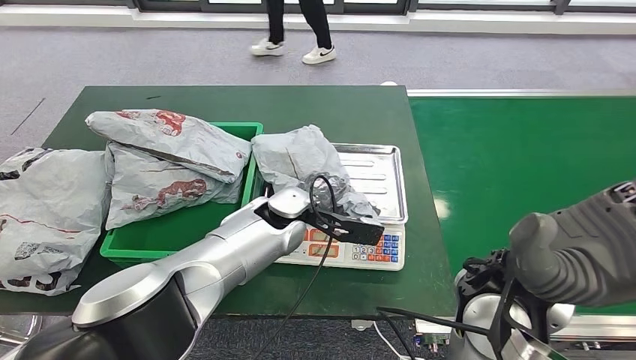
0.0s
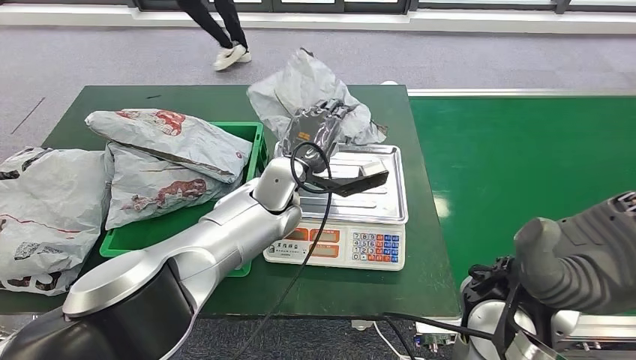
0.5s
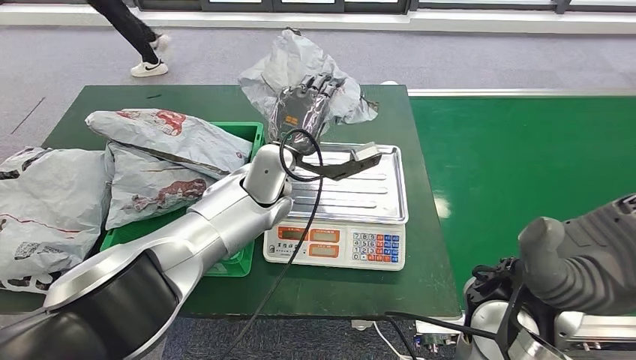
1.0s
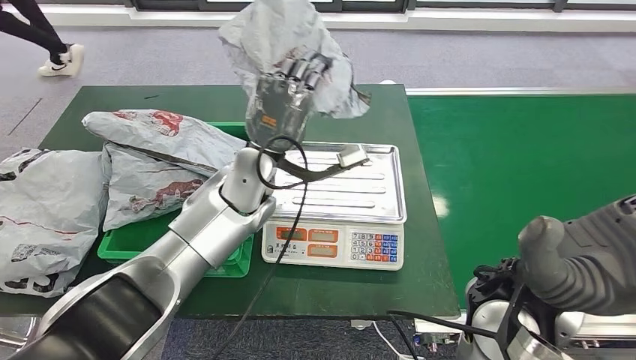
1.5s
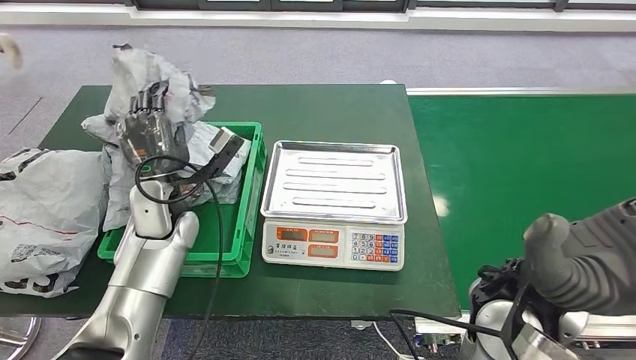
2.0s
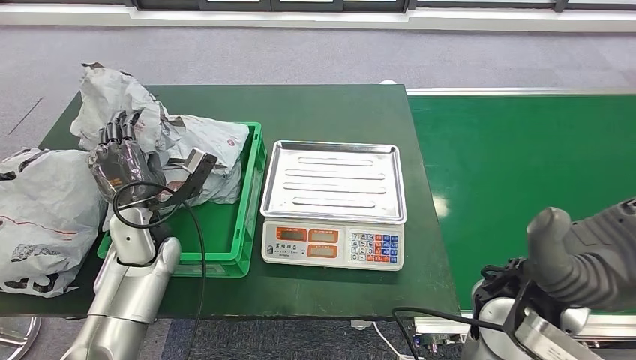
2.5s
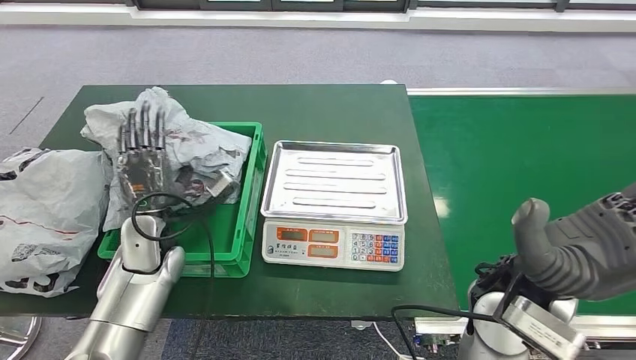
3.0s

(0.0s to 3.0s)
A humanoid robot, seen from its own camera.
Step, 1.0s - 3.0s: Place the parcel into the delivery box.

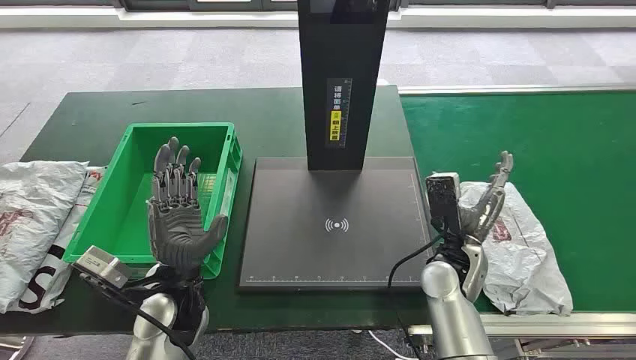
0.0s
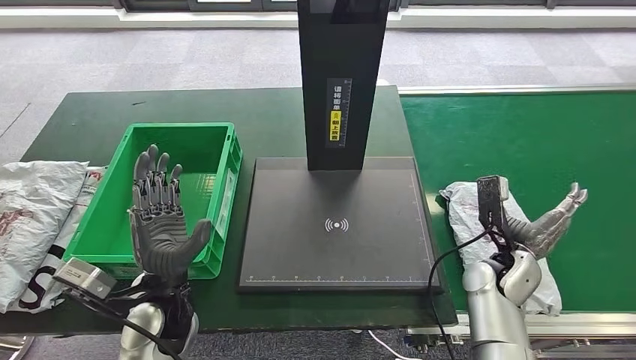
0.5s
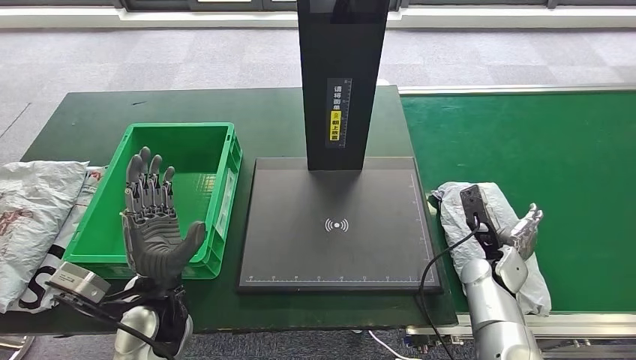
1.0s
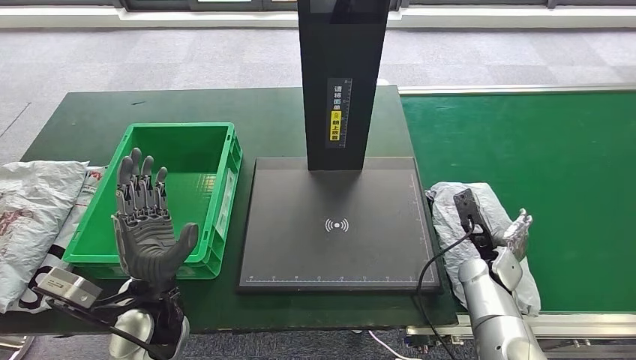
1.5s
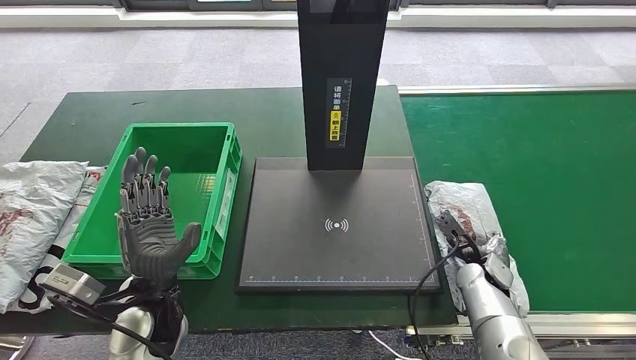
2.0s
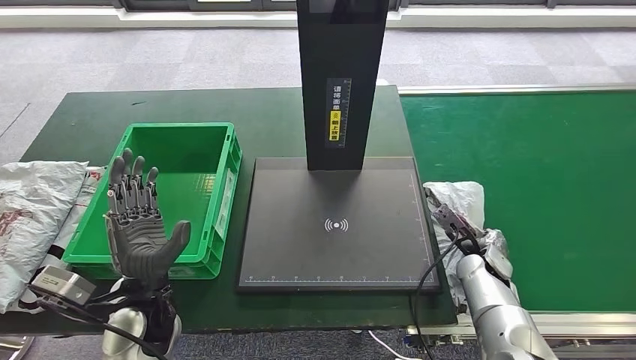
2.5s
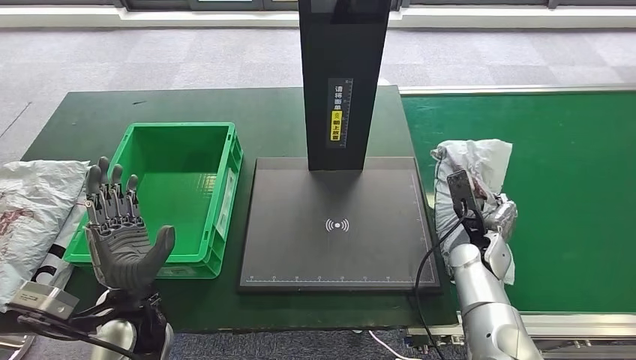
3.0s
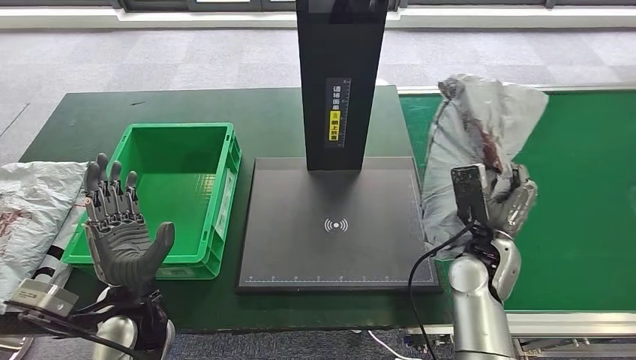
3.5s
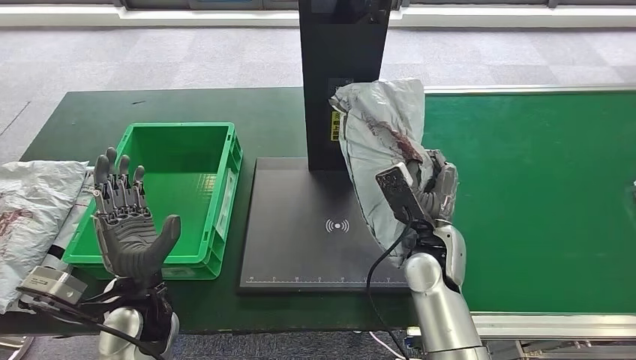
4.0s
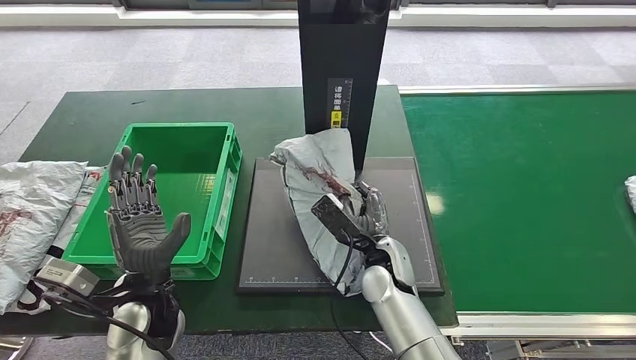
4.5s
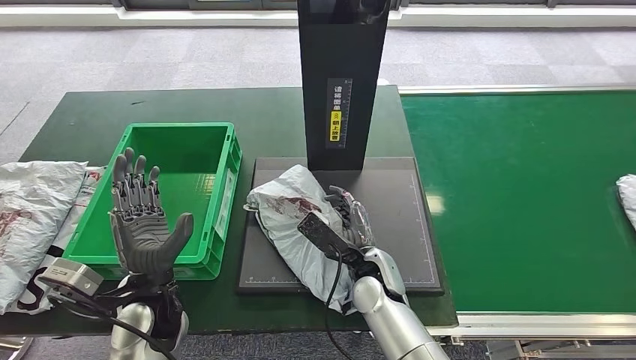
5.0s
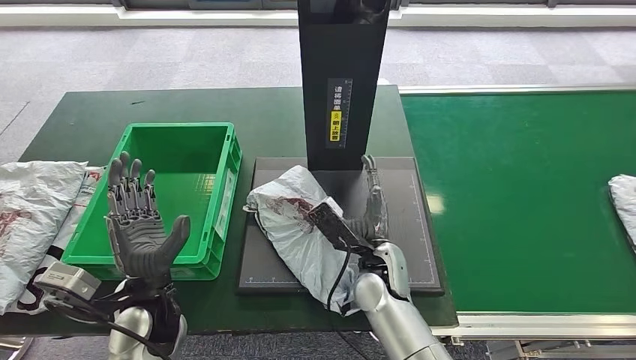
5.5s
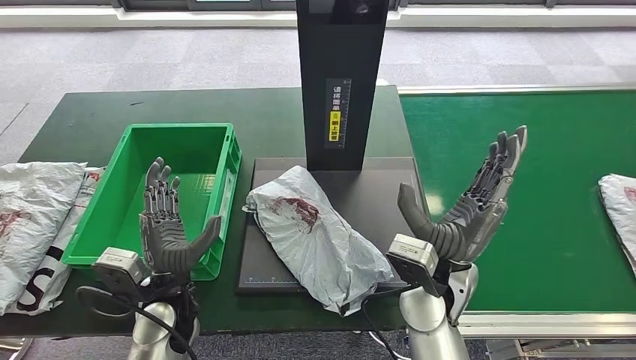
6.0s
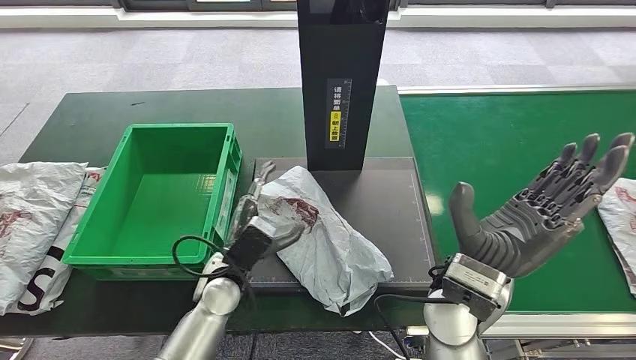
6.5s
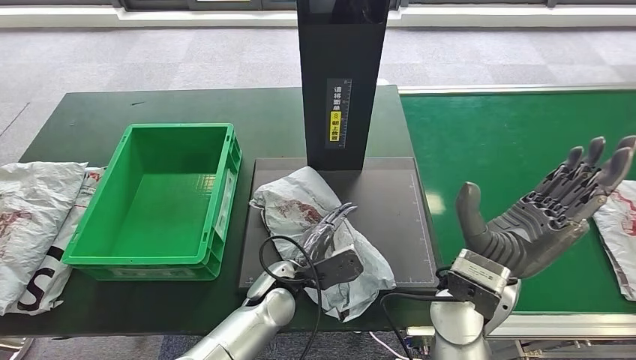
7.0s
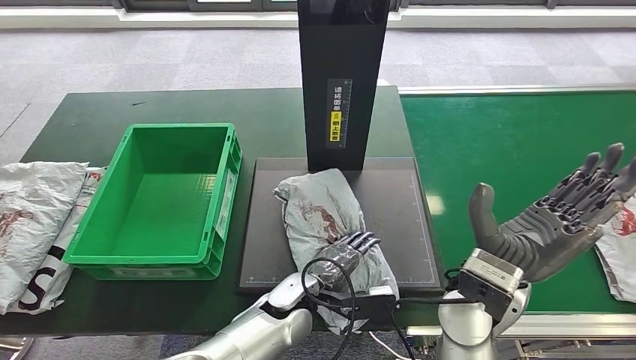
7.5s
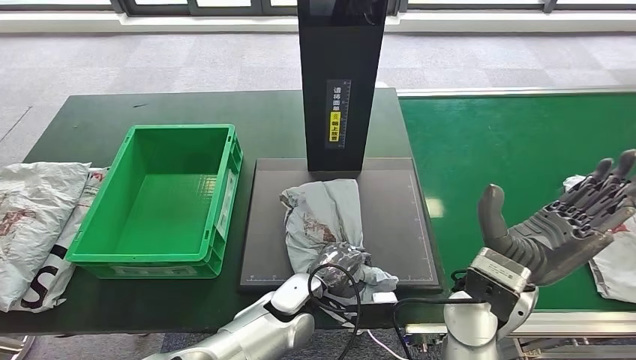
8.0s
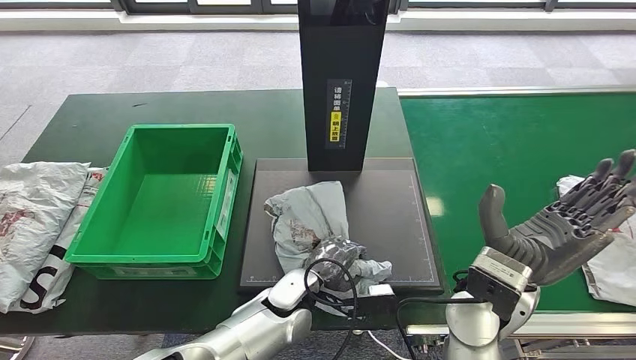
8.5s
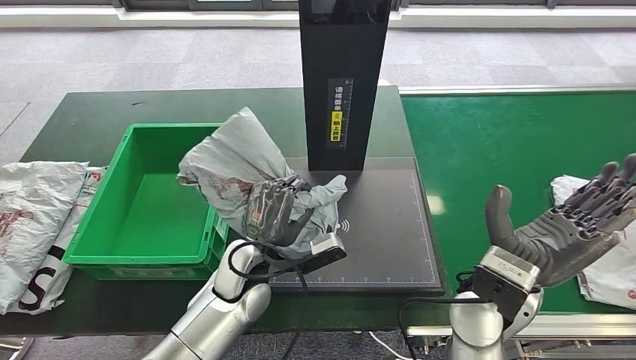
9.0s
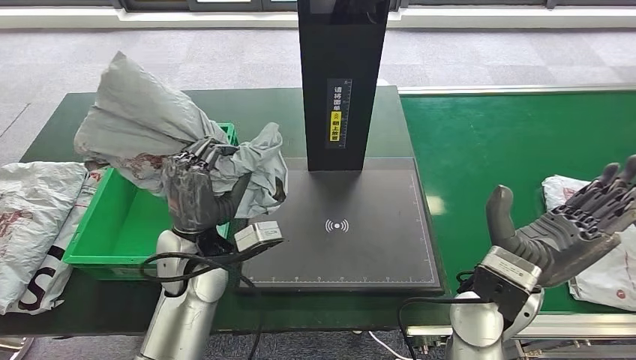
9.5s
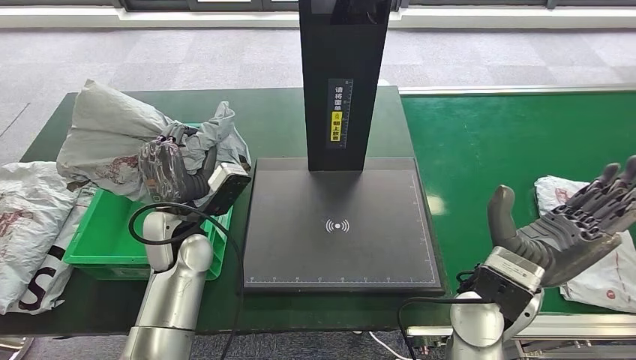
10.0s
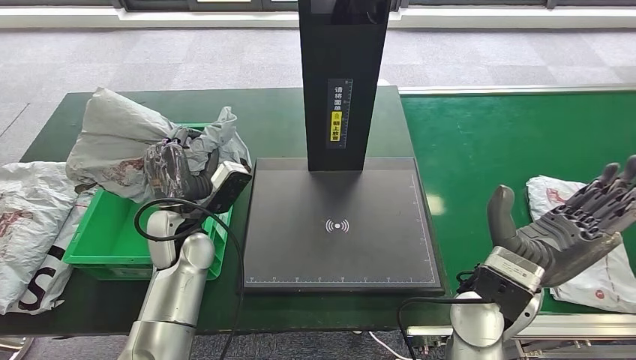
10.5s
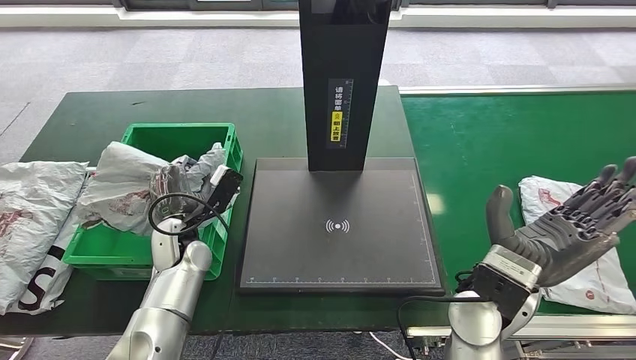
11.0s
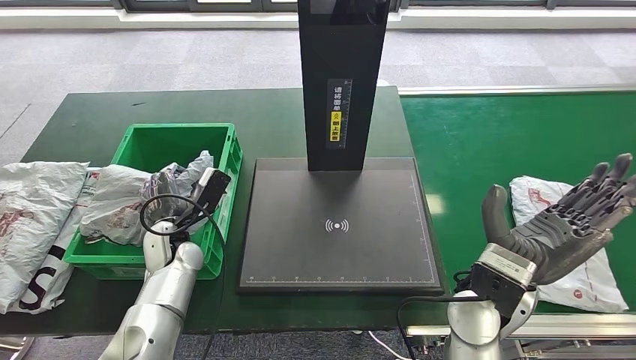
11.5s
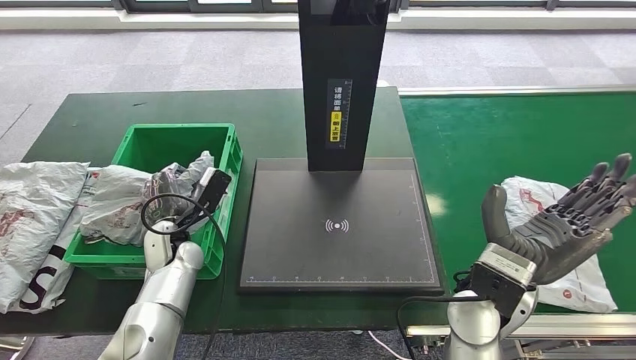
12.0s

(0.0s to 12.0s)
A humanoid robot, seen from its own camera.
Step, 0.0s - 3.5s: Take the parcel off the conveyor belt.
Step, 4.0s - 6.0s: Place the parcel onto the inbound machine.
Step, 6.5s - 8.5s: Pick up the parcel from the inbound machine.
2.0s - 4.0s: The right hand shifts approximately 20 cm to the left and upward.

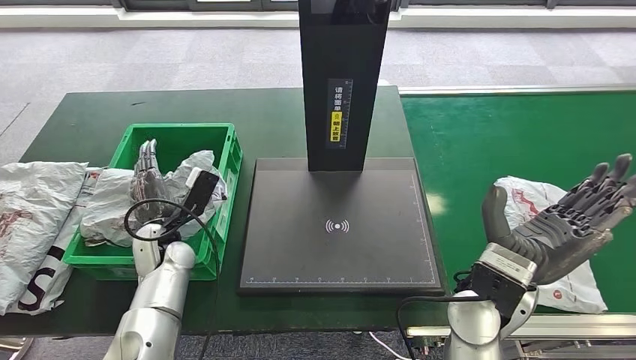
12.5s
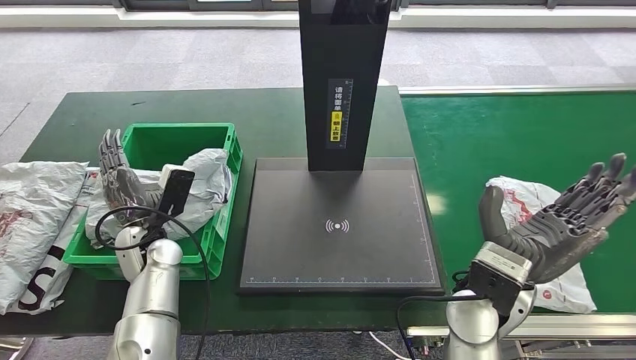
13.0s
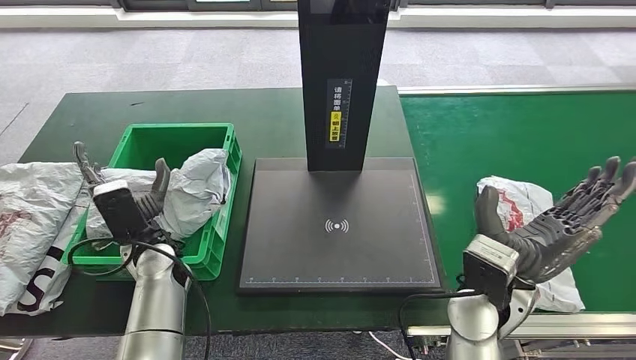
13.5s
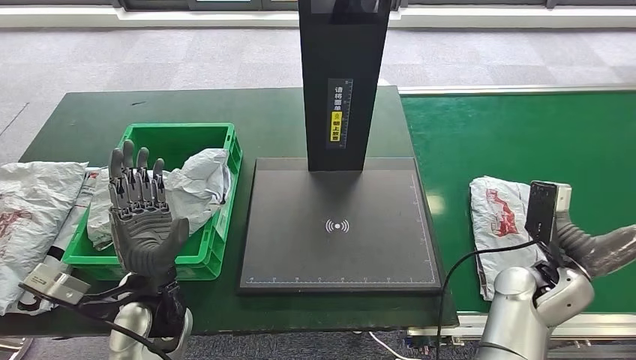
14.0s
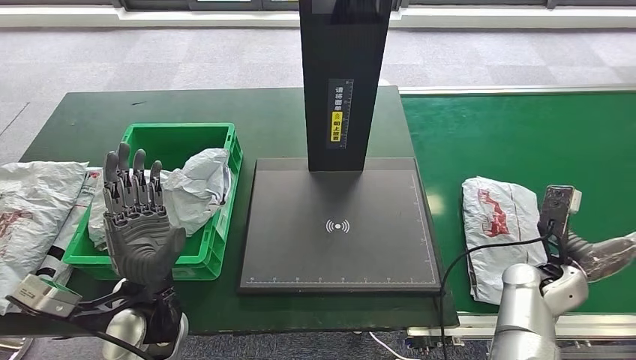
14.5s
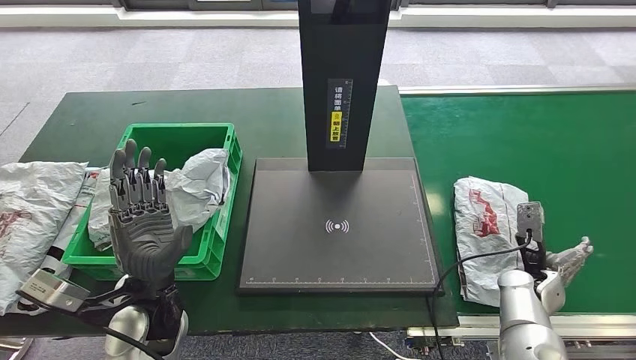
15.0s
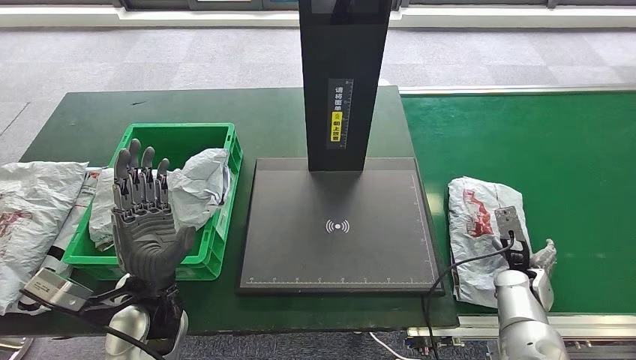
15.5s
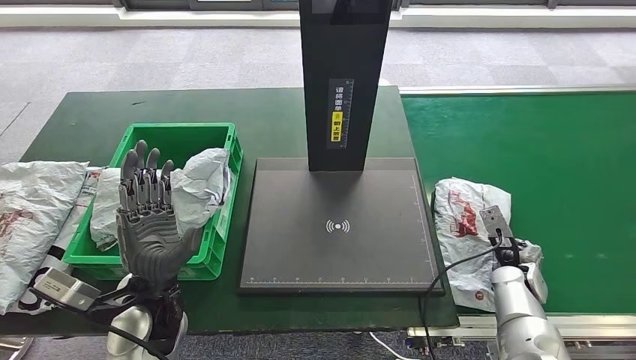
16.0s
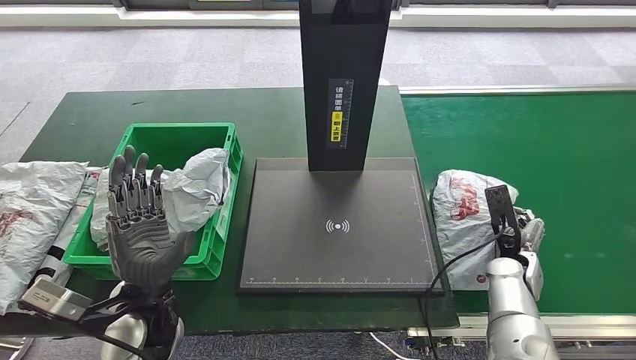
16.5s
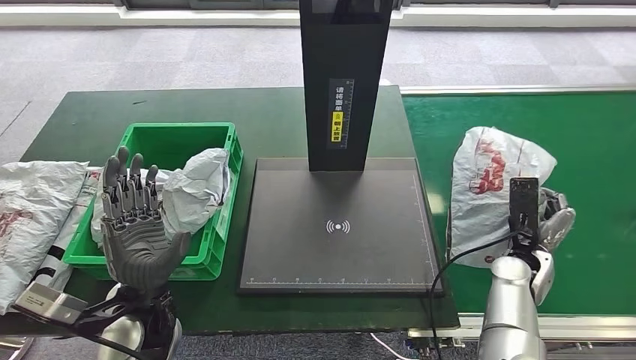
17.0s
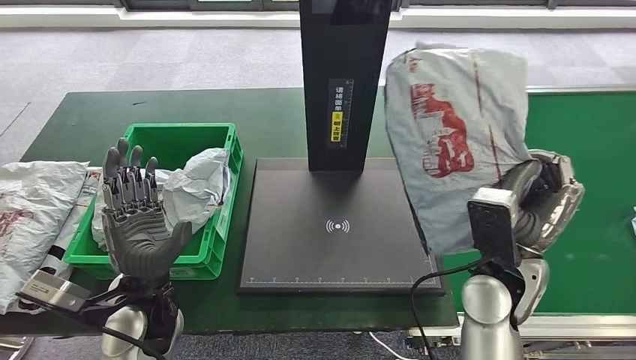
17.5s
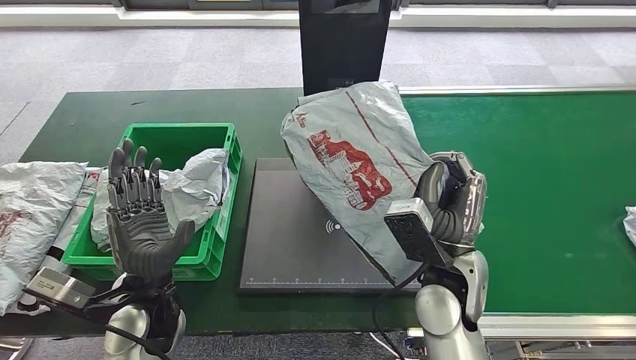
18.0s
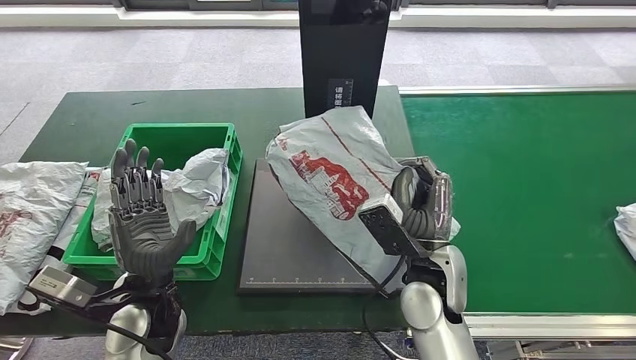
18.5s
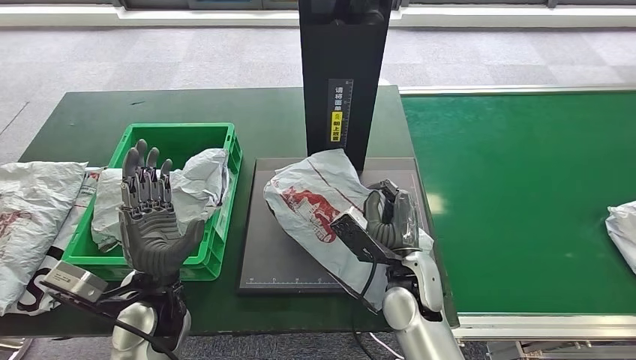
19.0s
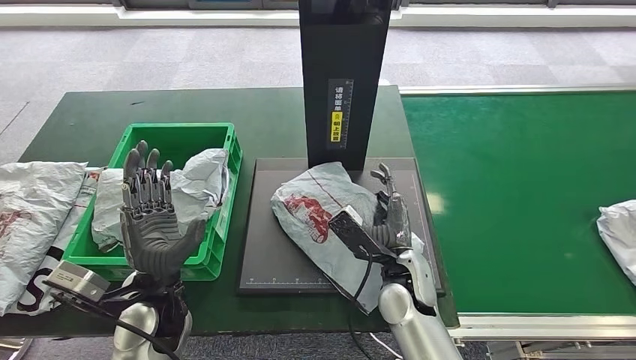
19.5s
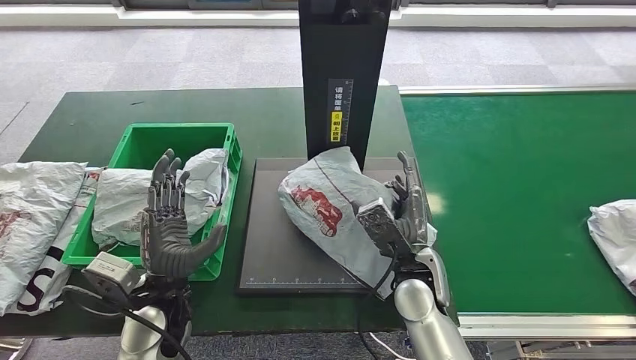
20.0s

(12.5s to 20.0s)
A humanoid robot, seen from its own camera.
Step, 14.5s - 17.5s: Pick up the parcel from the conveyor belt.
Step, 18.0s - 19.5s: Place the parcel onto the inbound machine.
12.5s - 14.5s: The left hand travels backward and upward by about 15 cm; the right hand travels to the right and downward by roughly 20 cm.
16.5s - 18.0s: The right hand shifts some 25 cm to the left and upward.
